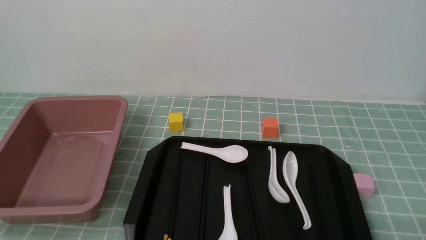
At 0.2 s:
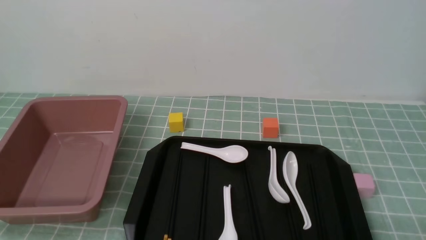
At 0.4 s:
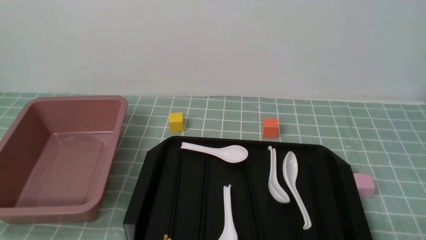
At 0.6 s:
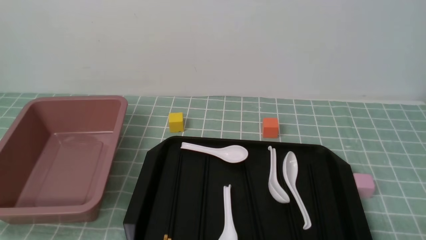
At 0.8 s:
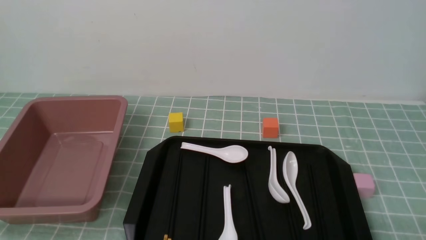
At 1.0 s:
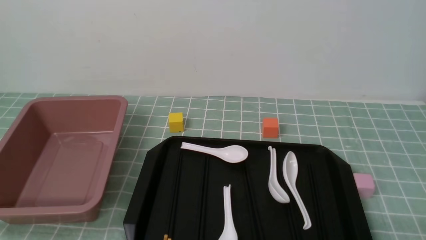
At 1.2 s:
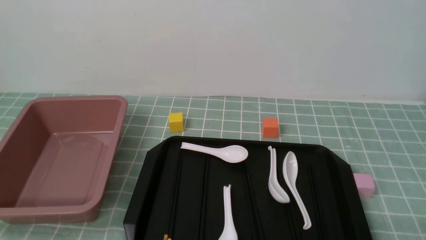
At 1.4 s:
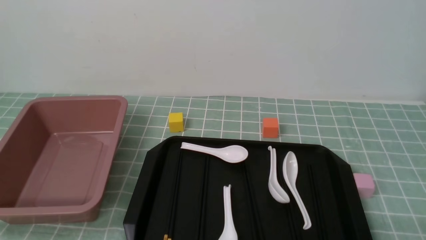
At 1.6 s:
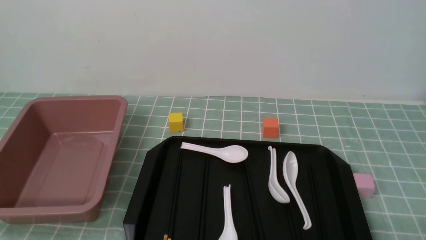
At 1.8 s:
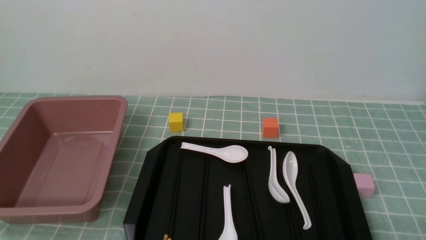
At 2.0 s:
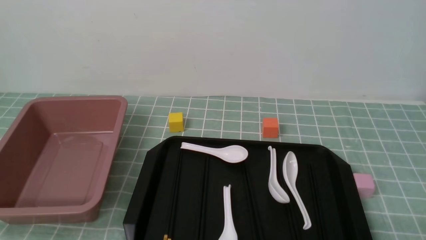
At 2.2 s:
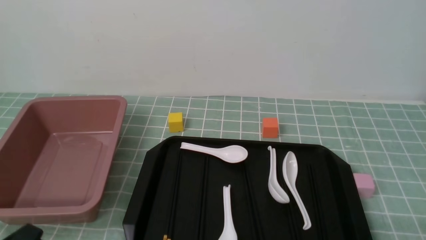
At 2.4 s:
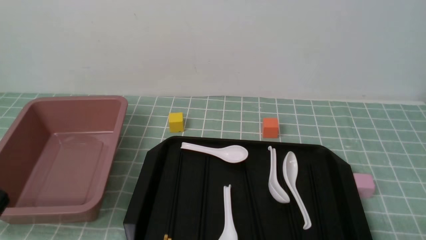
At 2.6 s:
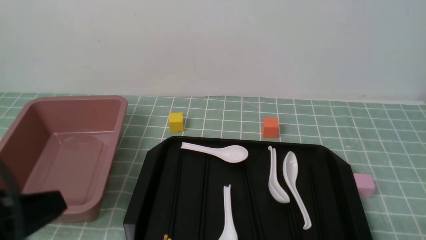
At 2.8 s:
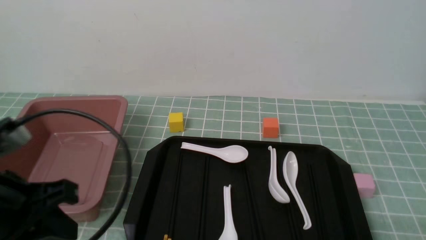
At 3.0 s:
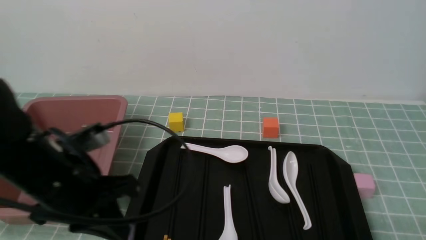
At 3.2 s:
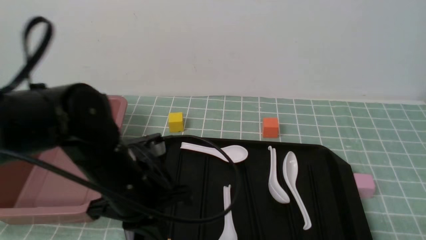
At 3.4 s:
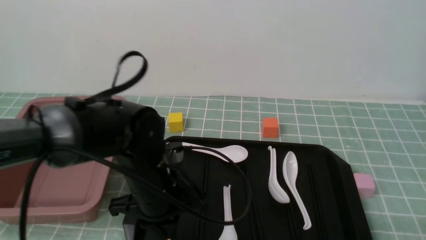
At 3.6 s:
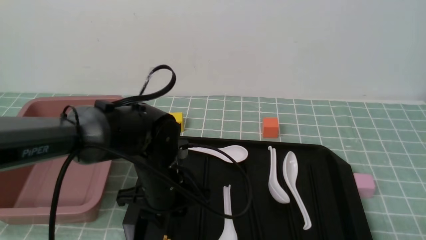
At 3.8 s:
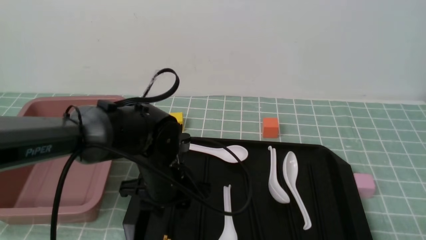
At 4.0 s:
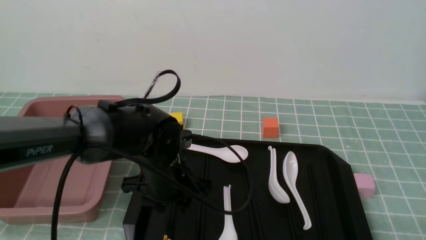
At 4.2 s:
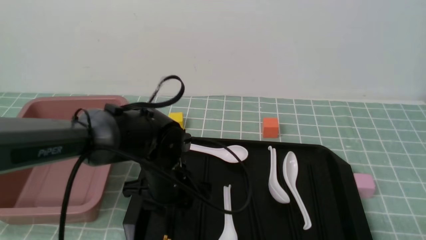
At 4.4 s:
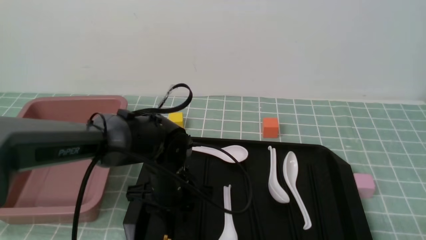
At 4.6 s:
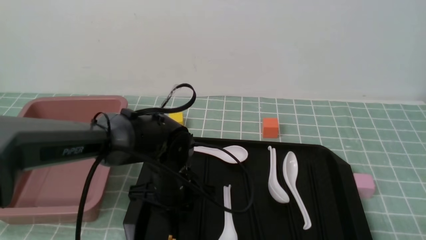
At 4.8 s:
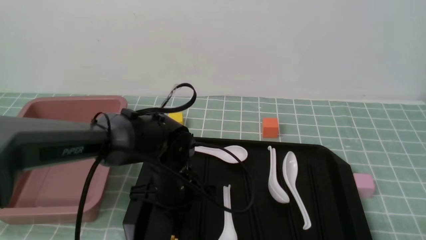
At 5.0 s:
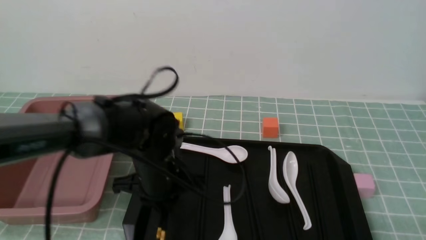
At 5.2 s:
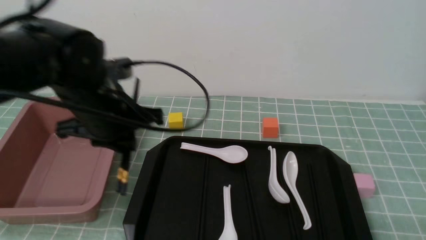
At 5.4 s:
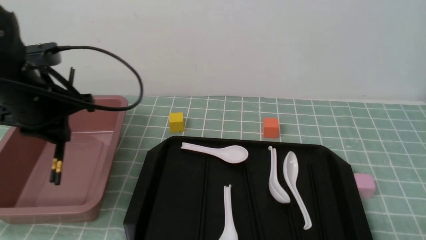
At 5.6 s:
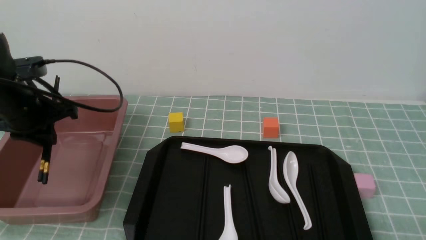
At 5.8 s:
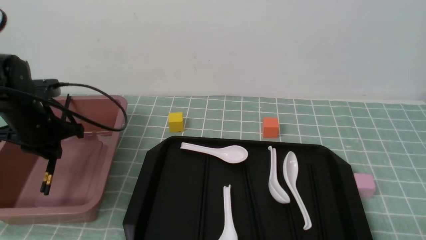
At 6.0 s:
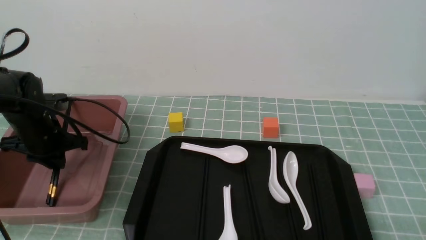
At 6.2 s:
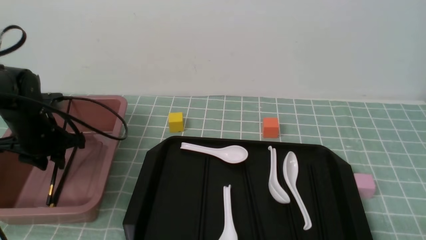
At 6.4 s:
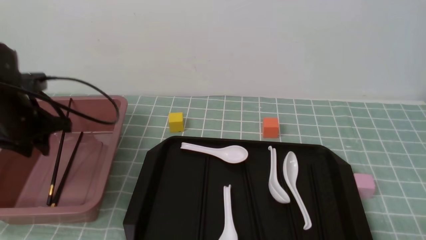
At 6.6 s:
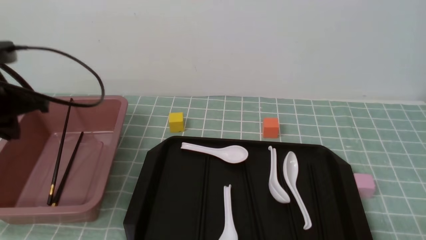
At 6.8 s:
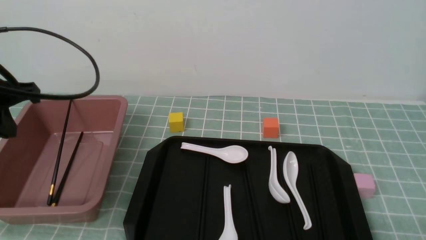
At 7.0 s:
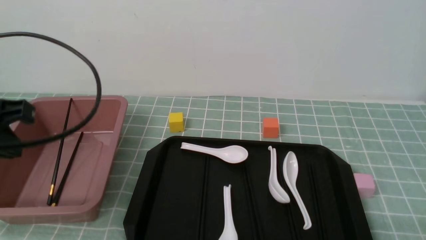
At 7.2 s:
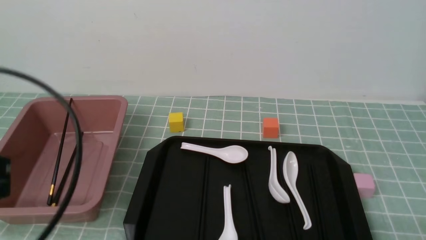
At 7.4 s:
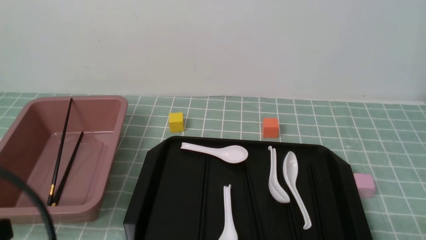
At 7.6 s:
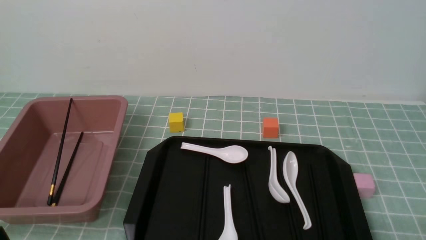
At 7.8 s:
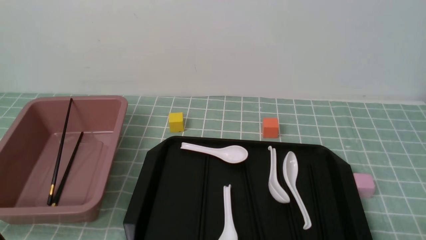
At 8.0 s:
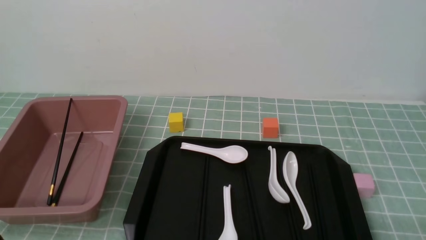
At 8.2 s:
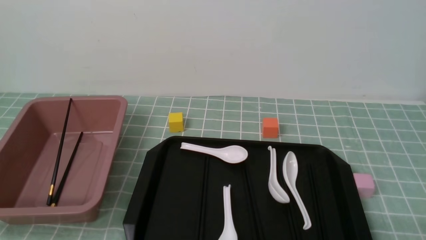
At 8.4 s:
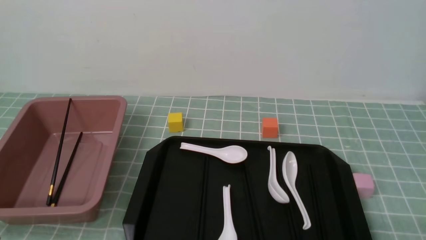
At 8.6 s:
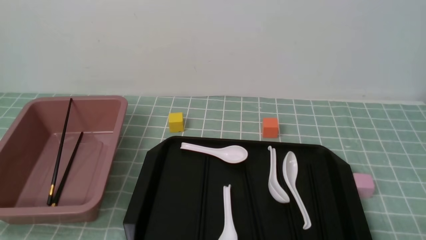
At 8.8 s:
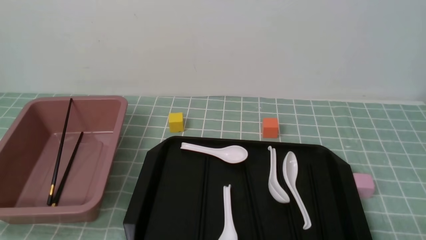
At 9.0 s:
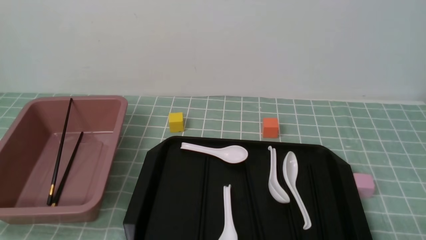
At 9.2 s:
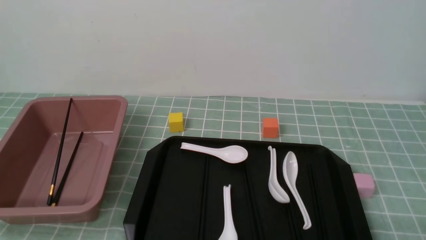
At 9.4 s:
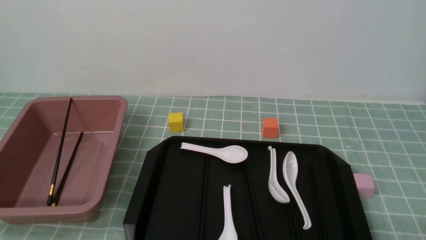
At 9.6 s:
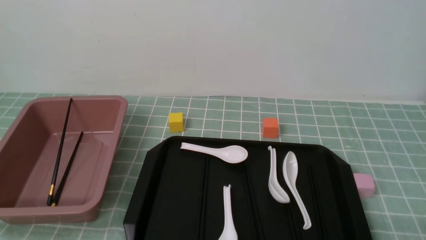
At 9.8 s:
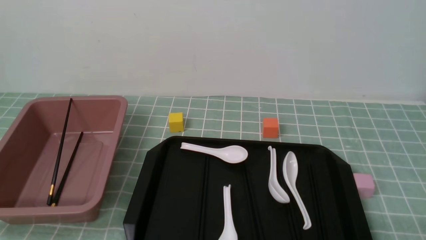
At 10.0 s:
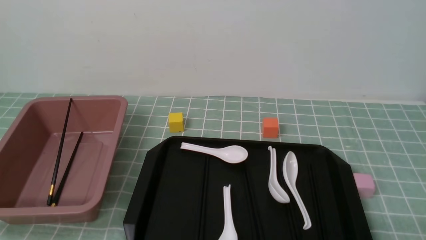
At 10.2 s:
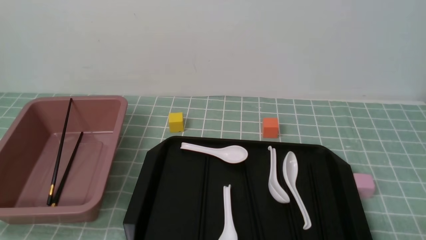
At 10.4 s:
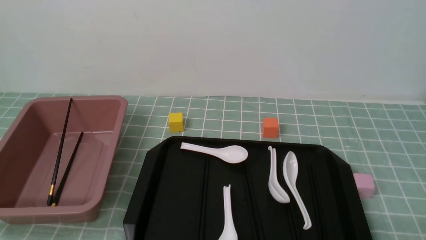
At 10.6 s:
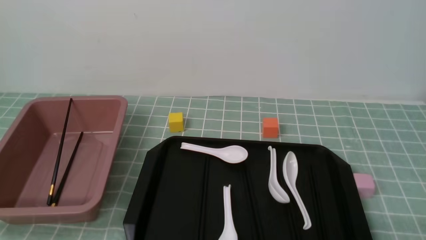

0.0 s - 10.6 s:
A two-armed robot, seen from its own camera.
Step, 0.0 s - 5.0 s: use the left arm to grab a pair of chopsticks.
Step, 5.2 s - 6.4 s: use the left arm to put the chopsticks into the lunch box.
1.6 s - 3.0 s: The left gripper heads forward, upward and to the right, covering roughly 20 cm, and closes.
3.0 s - 4.6 s: The left gripper shifts about 20 cm downward, to the right and forward, and opens up.
4.6 s - 6.0 s: The left gripper goes approximately 25 cm to the left.
6.0 s - 7.6 s: The left gripper travels backward by some 35 cm, and closes.
9.0 s - 10.6 s: Both grippers stay about where they are.

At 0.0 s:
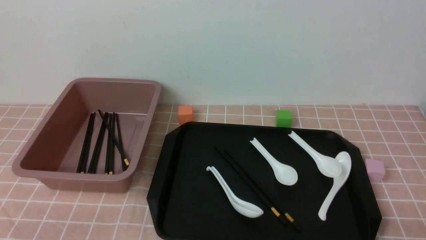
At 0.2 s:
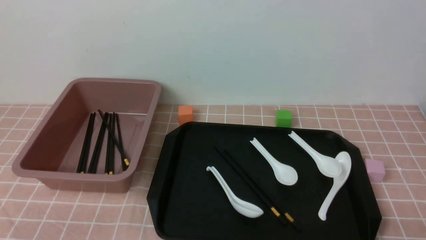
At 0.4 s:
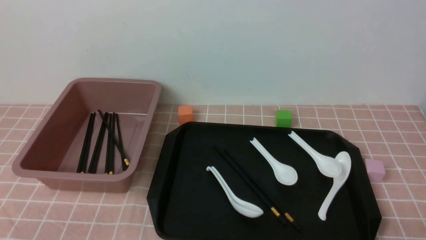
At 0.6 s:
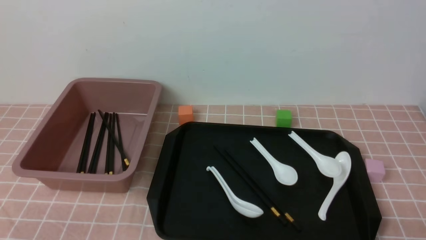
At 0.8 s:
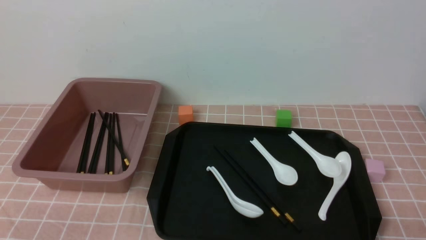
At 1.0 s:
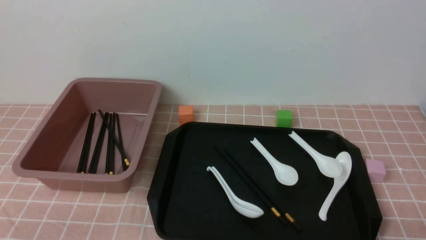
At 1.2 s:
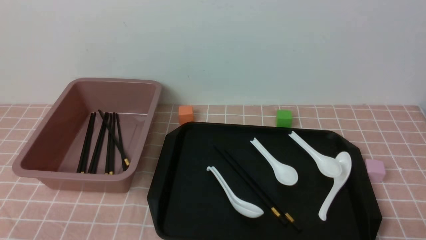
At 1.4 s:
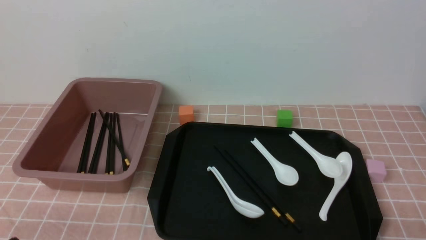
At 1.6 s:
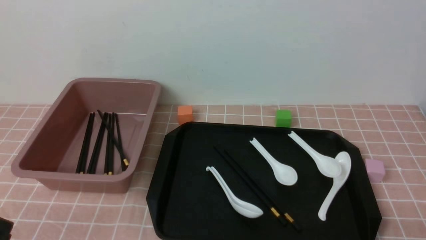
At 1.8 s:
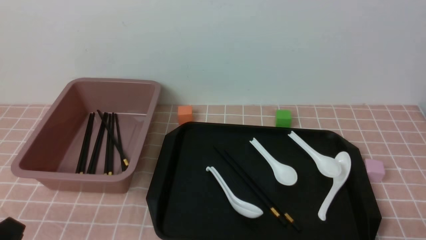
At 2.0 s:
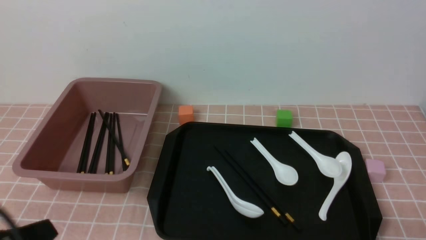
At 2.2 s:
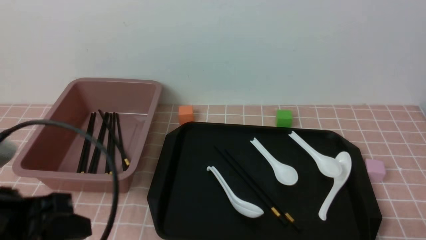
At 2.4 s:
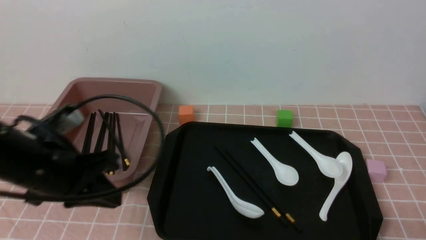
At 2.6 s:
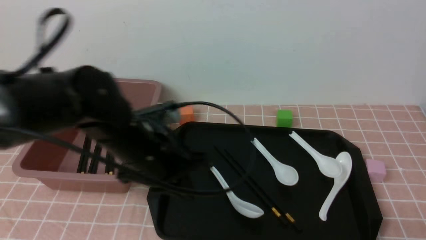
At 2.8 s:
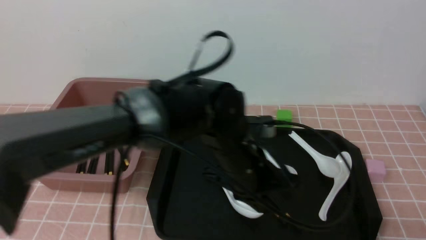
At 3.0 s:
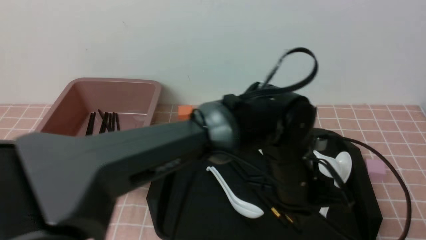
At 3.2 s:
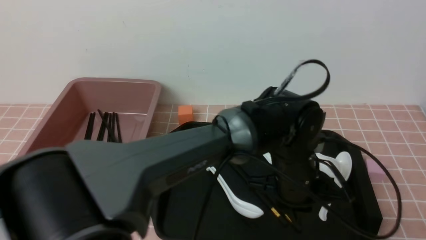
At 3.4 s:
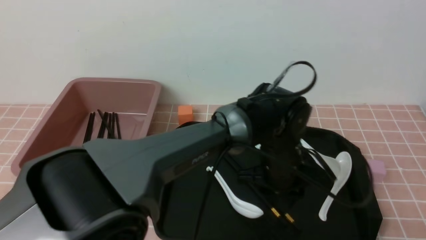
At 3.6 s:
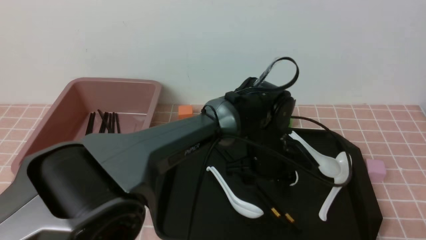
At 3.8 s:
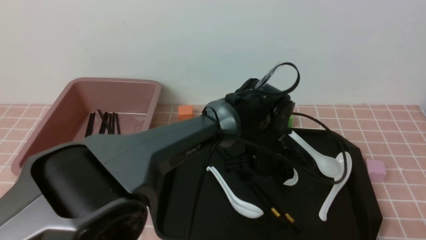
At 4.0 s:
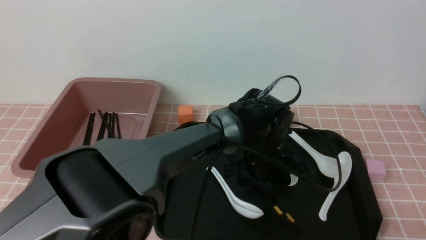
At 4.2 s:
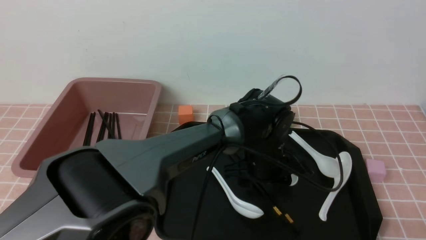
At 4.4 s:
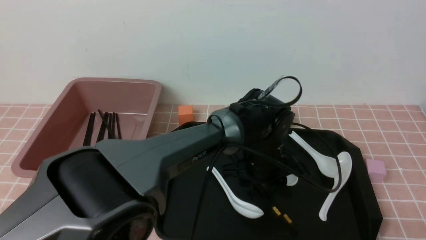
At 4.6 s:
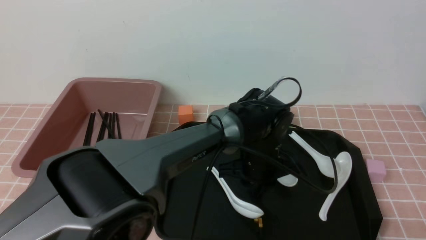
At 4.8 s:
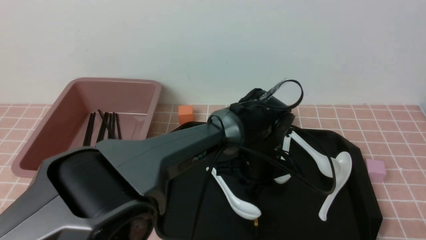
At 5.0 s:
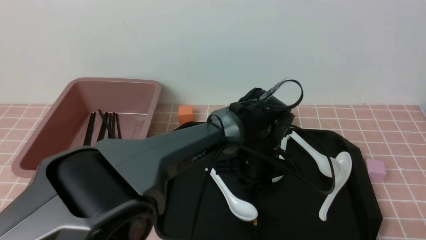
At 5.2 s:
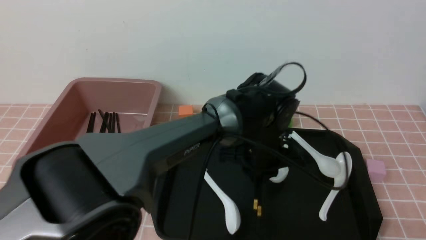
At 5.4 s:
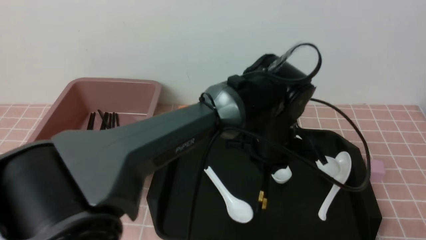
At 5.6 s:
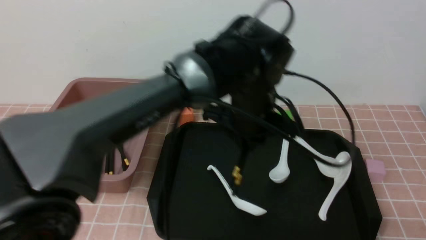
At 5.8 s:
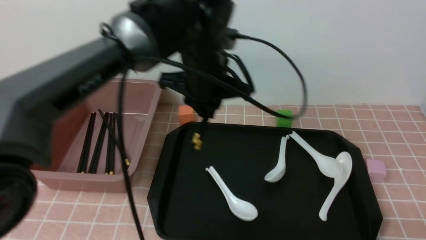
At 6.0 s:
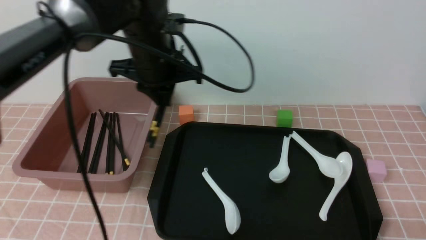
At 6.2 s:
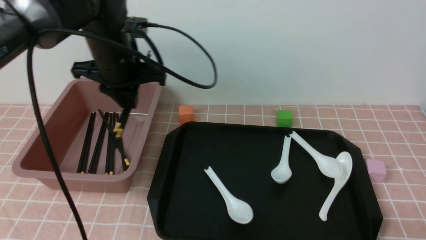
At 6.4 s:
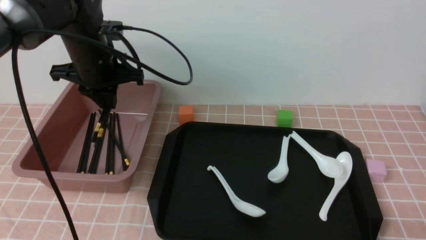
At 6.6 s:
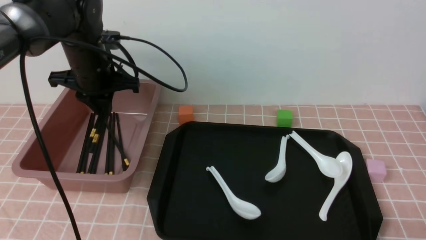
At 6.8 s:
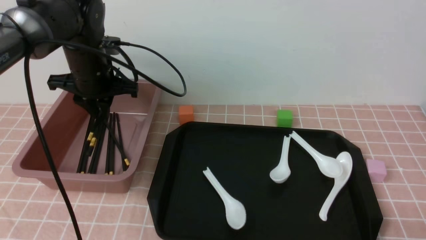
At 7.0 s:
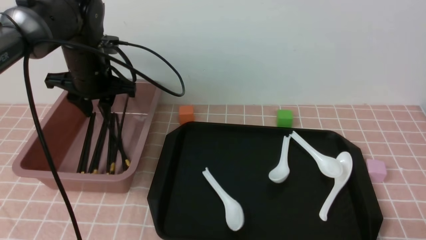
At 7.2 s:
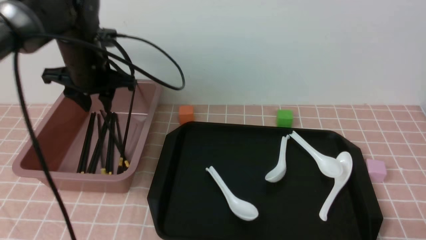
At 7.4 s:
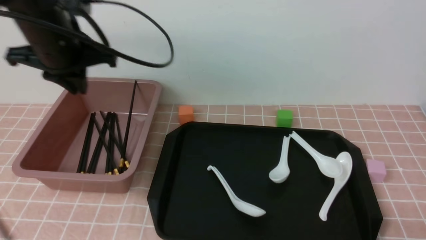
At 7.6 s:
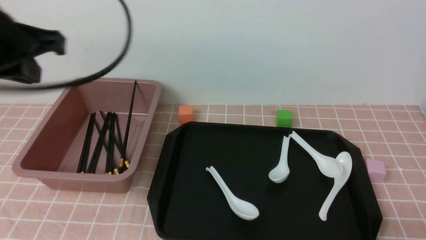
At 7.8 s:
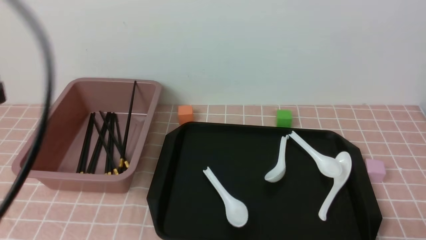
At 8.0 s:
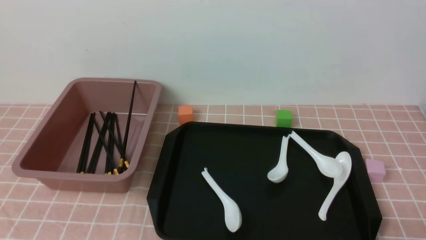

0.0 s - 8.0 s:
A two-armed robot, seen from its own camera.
Step, 0.0 s - 5.2 s: use the left arm to grab a pair of chopsticks.
Step, 5.4 s - 7.2 s: use the left arm to put the chopsticks into the lunch box.
1.6 s - 3.2 s: The left gripper moves to the right and forward, about 40 cm, and closes up.
3.2 s - 4.8 s: The left gripper shifts approximately 10 cm forward and downward, and opens, then closes again.
4.8 s - 6.4 s: The left gripper is displaced to the left and upward by roughly 30 cm.
6.4 s - 8.0 s: The left gripper moves backward, some 30 cm.